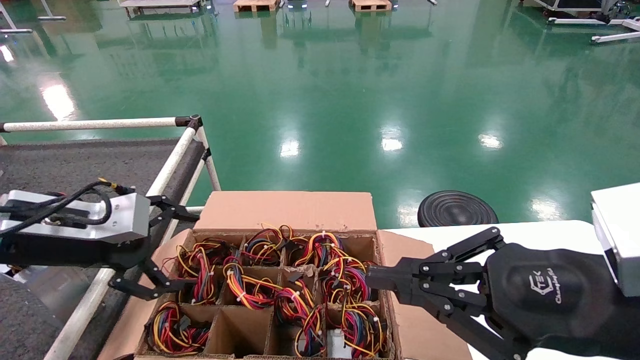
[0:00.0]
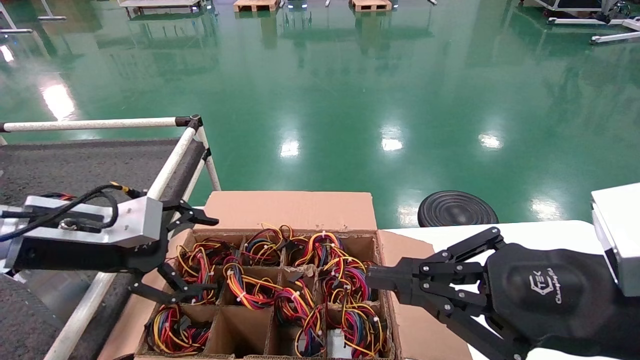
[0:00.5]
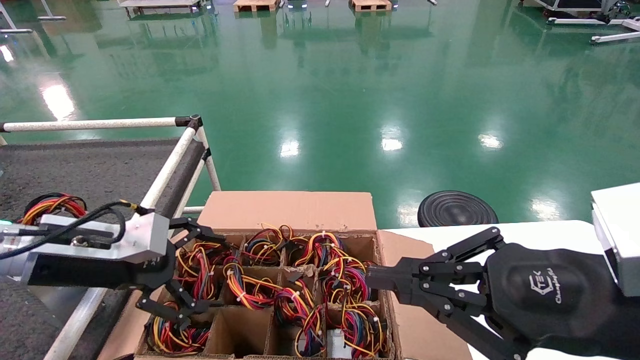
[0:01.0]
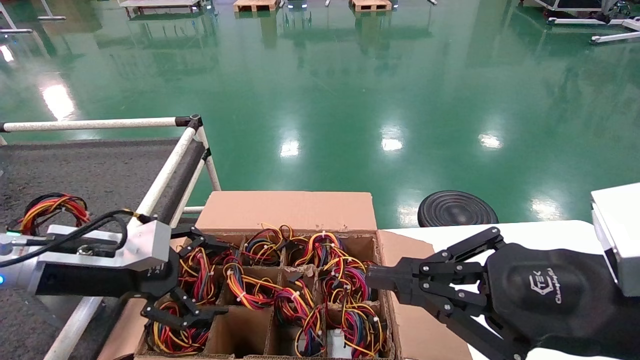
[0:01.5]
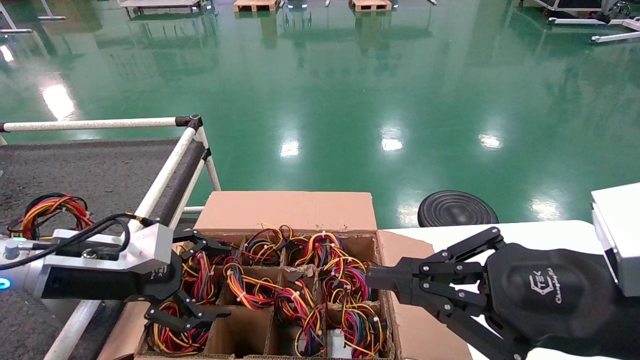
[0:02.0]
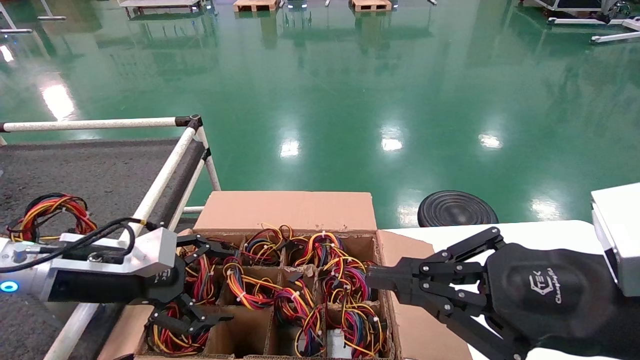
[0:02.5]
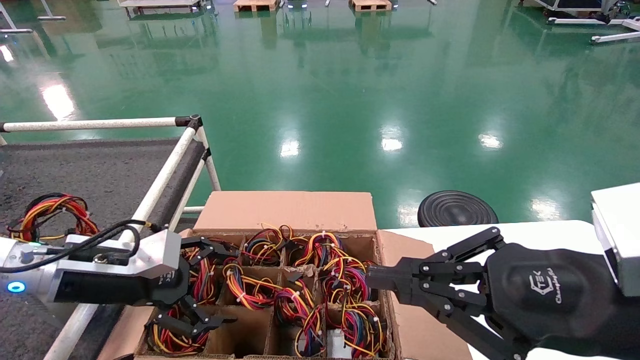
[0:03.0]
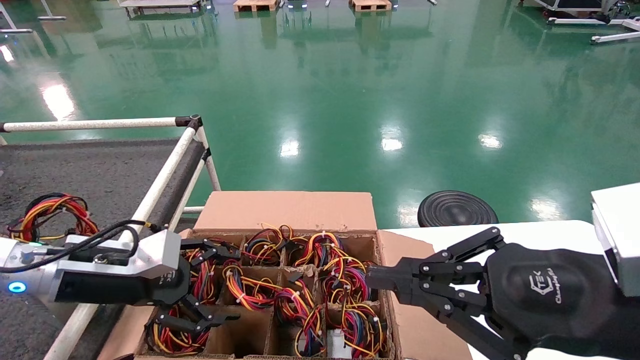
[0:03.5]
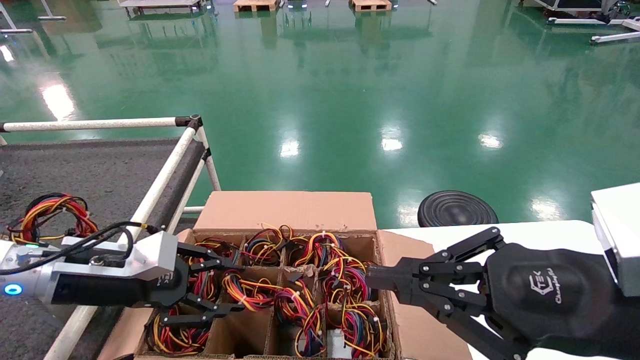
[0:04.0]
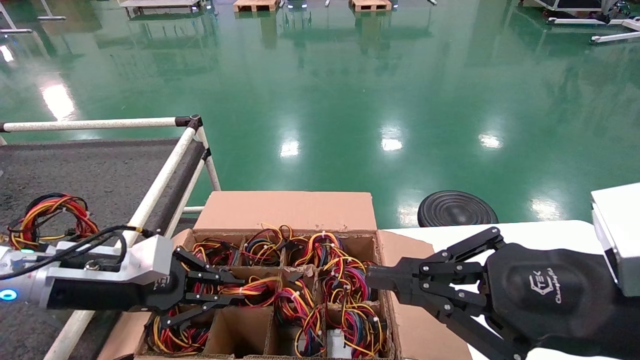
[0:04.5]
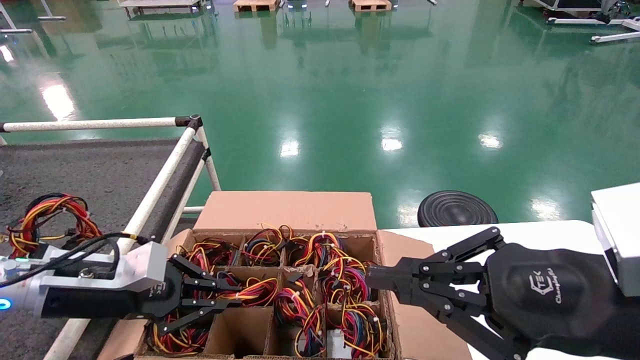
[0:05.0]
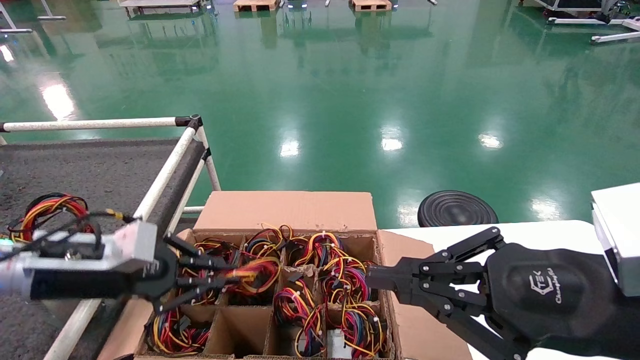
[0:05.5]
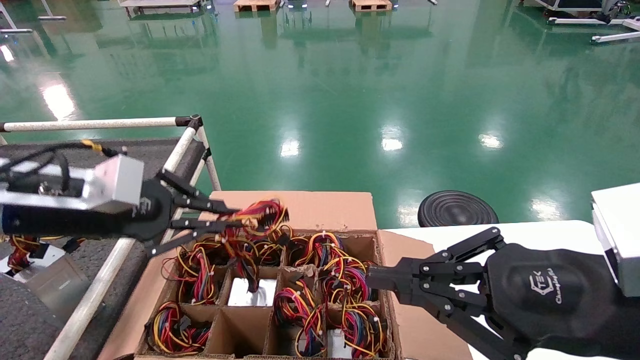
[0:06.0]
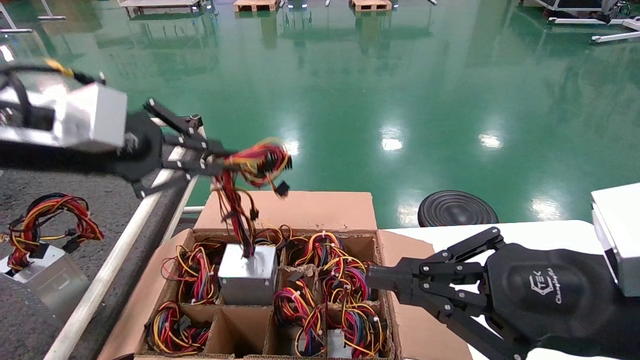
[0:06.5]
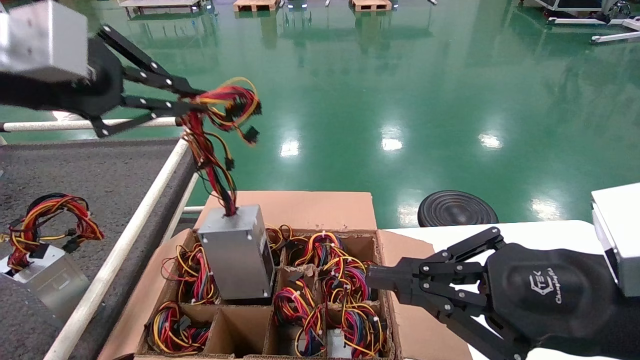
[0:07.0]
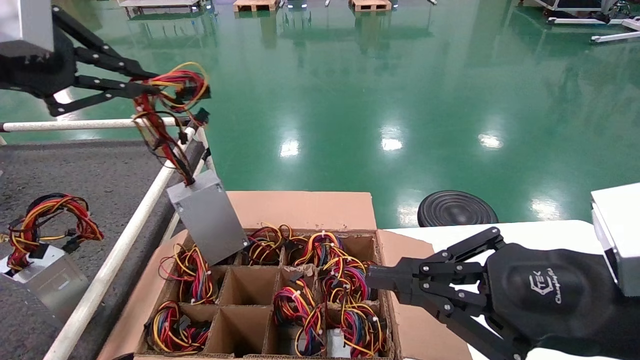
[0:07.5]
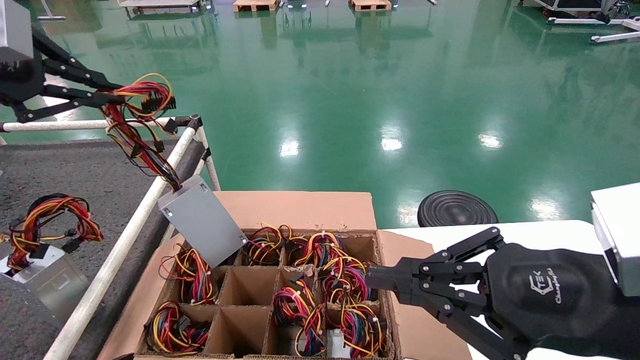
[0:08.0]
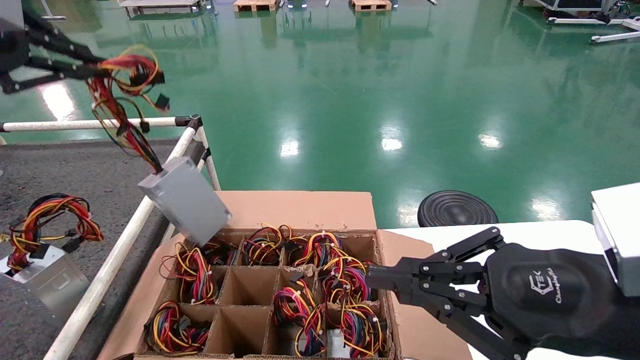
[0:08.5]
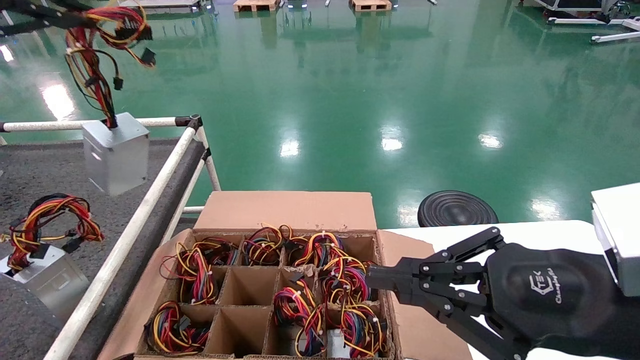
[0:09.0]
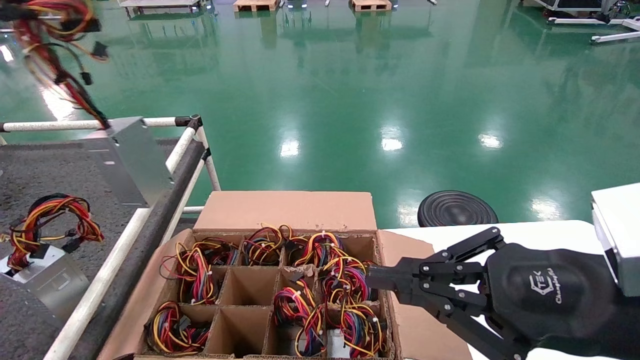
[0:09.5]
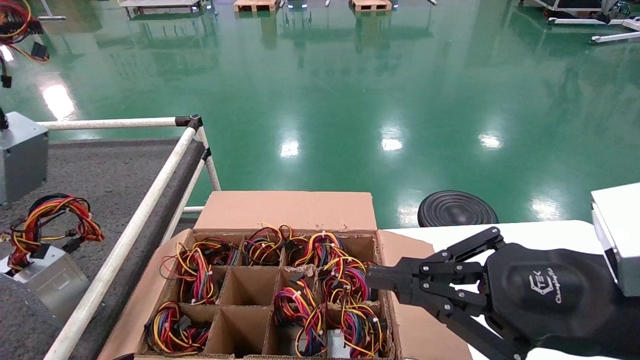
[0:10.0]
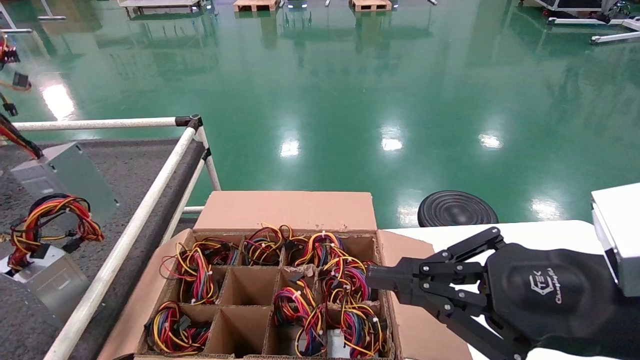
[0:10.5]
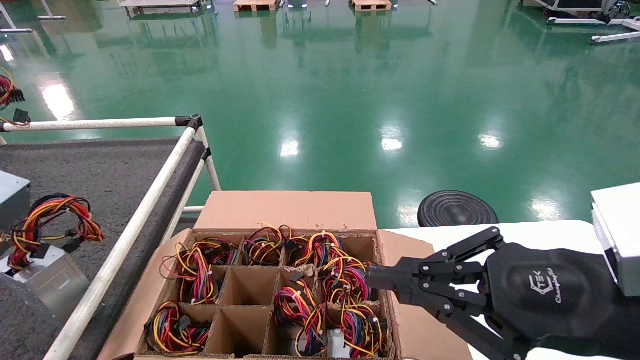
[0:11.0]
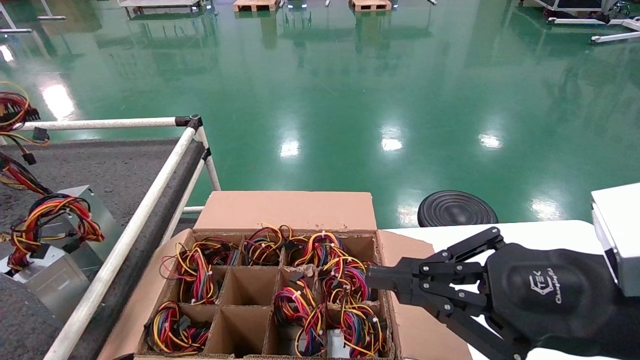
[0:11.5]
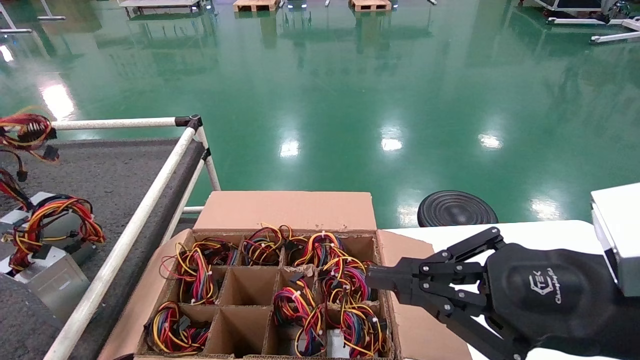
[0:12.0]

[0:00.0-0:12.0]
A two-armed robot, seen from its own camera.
Step, 0:00.0 to 0:04.5: Grab and lift the power supply from the large box.
0:00.0 to 0:02.0: The left gripper travels downward by approximately 5 cm.
0:02.0 to 0:04.0: The grippers make only small movements.
0:04.0 to 0:06.0: The left gripper heads upward, covering roughly 10 cm, and closes its fingers.
0:06.0 to 0:08.0: The left gripper moves upward and to the left, roughly 20 cm.
0:08.0 to 0:10.0: The left gripper is displaced to the left and upward by approximately 10 cm.
0:10.0 to 0:12.0: The left gripper goes about 10 cm downward.

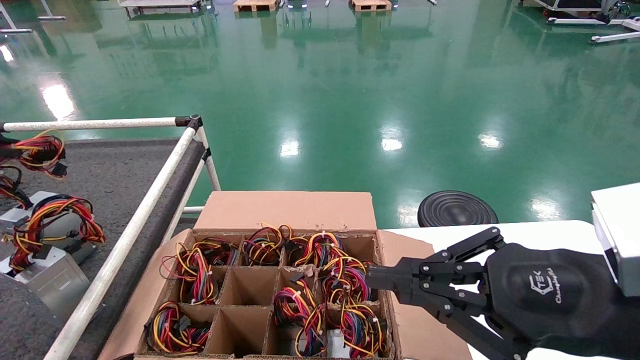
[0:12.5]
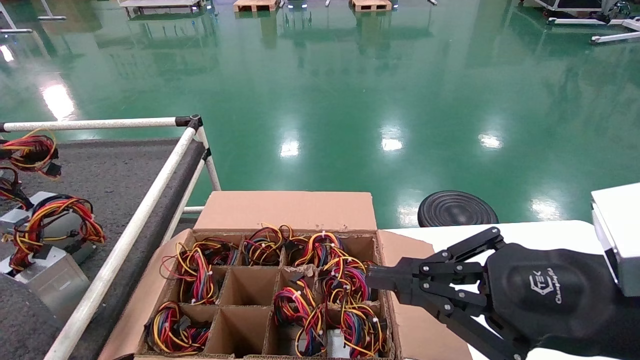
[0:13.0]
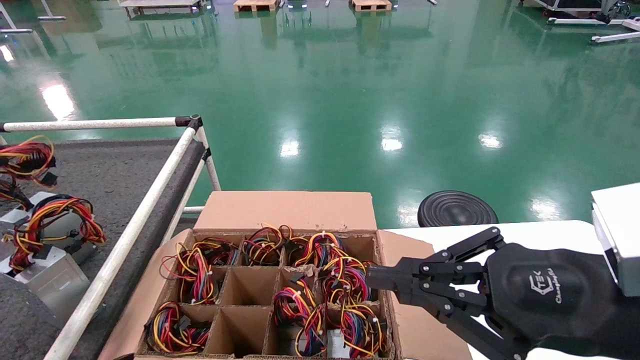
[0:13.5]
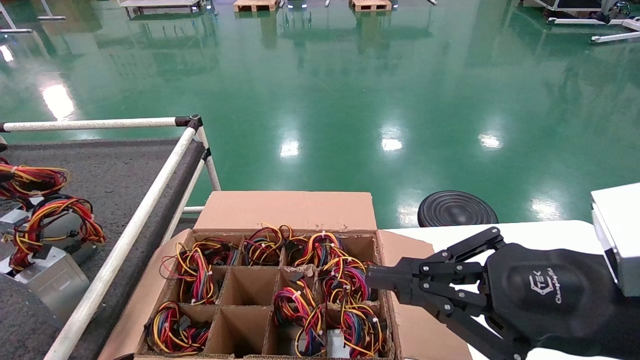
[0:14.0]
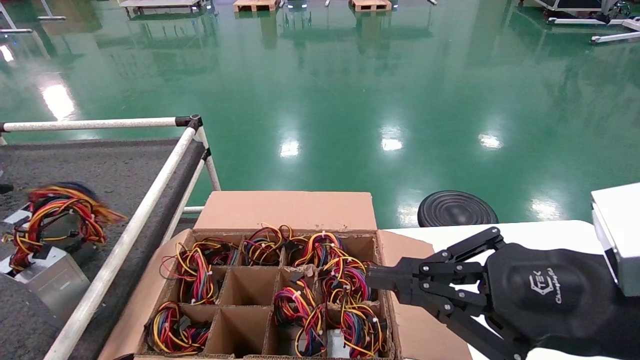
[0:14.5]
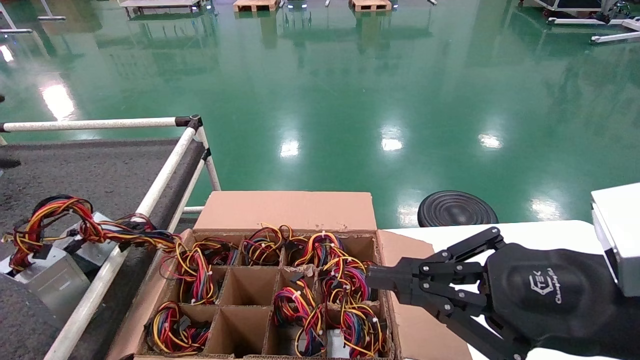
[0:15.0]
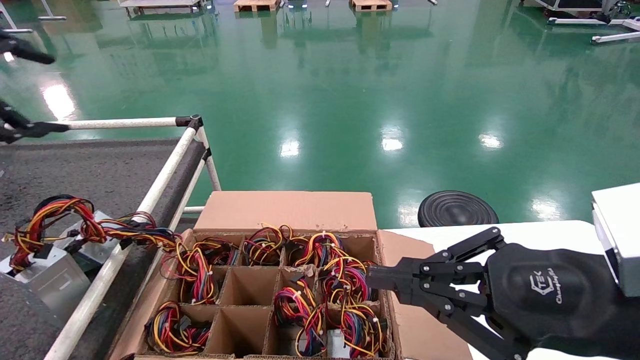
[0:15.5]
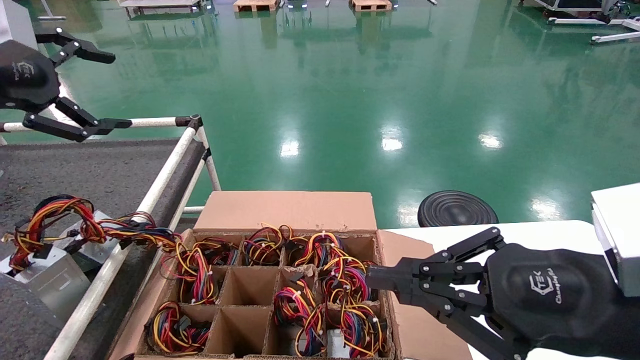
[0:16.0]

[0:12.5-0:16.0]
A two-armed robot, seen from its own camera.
0:12.5 to 0:14.5: The left gripper opens up.
0:14.5 to 0:16.0: The left gripper moves to the right, approximately 10 cm, and opens up.
